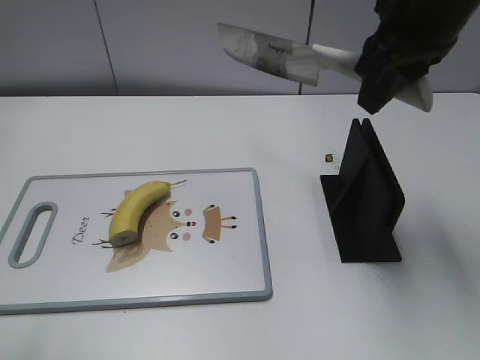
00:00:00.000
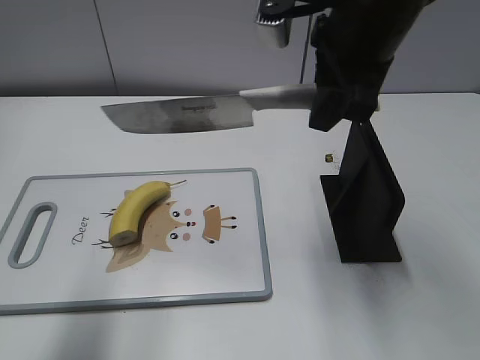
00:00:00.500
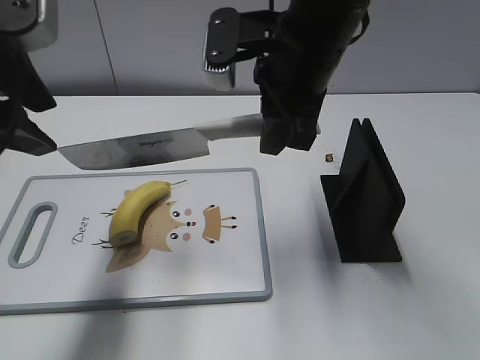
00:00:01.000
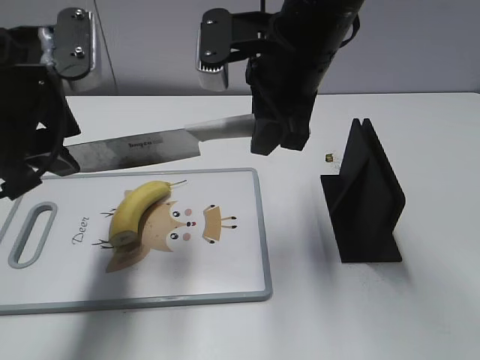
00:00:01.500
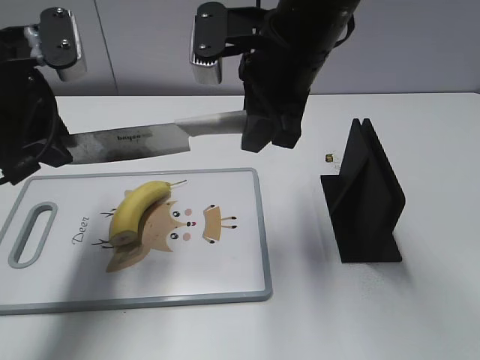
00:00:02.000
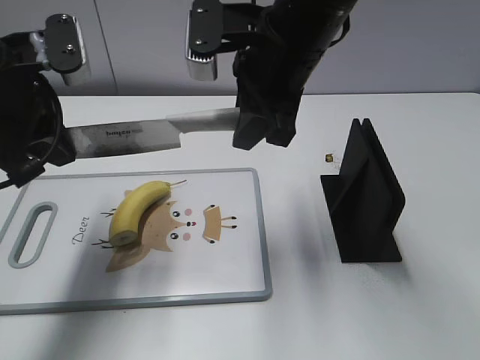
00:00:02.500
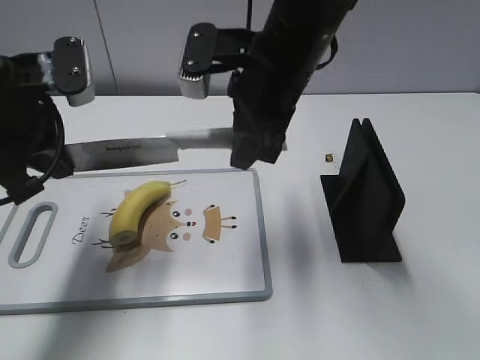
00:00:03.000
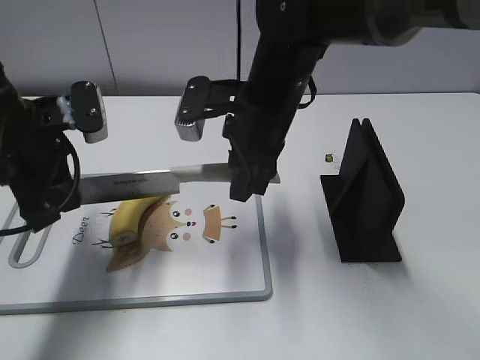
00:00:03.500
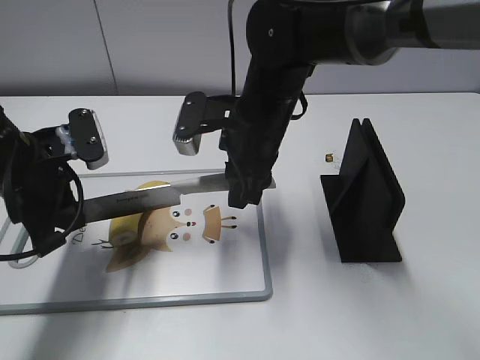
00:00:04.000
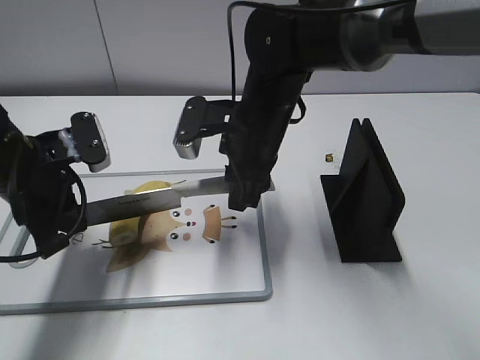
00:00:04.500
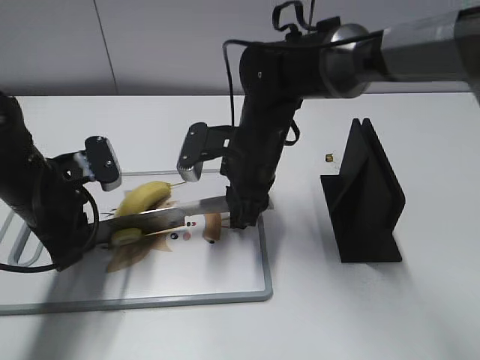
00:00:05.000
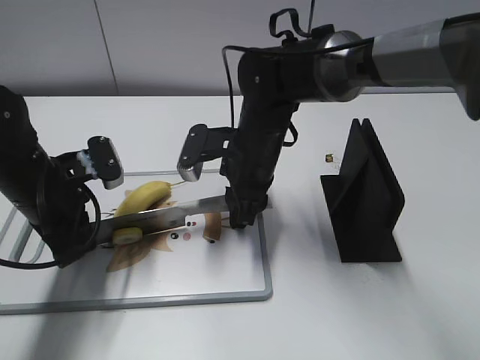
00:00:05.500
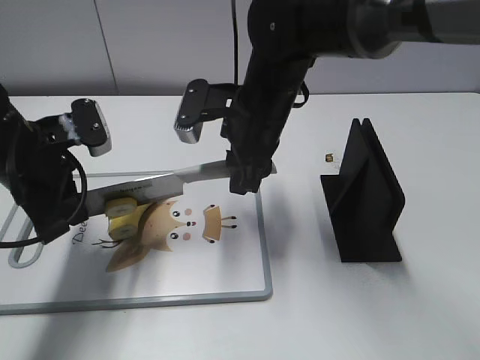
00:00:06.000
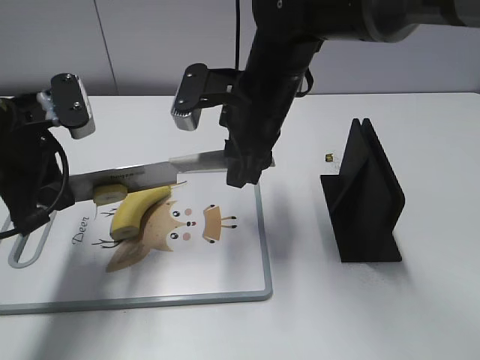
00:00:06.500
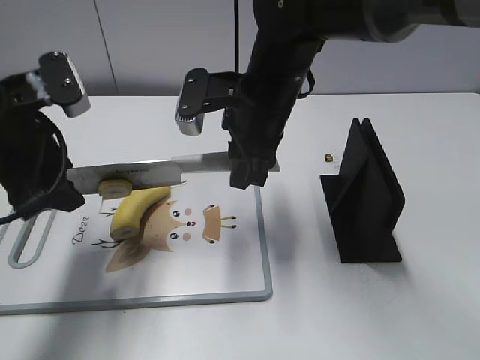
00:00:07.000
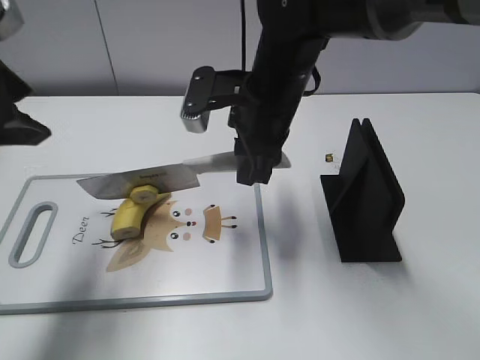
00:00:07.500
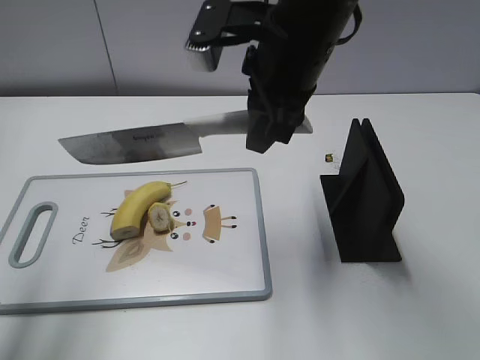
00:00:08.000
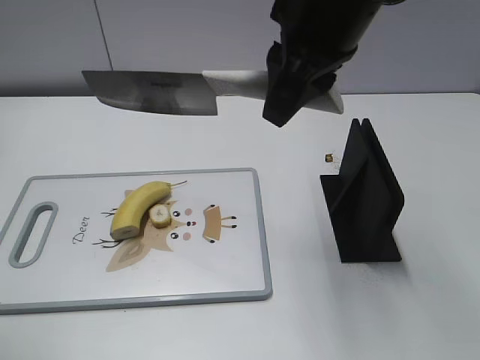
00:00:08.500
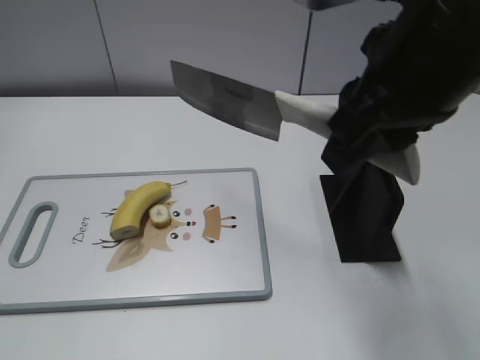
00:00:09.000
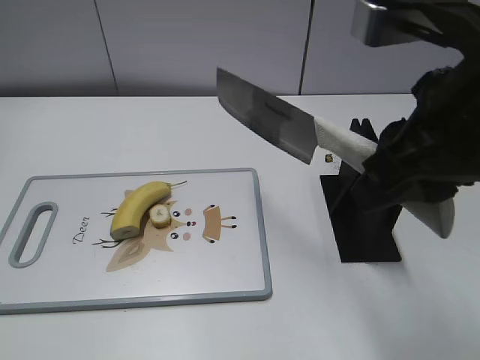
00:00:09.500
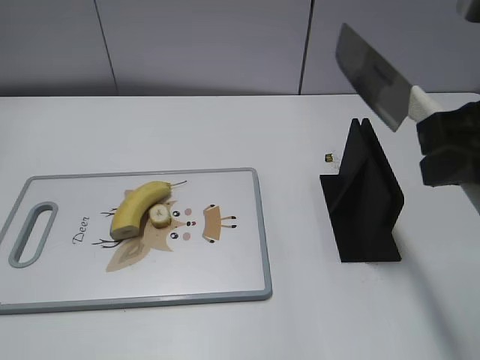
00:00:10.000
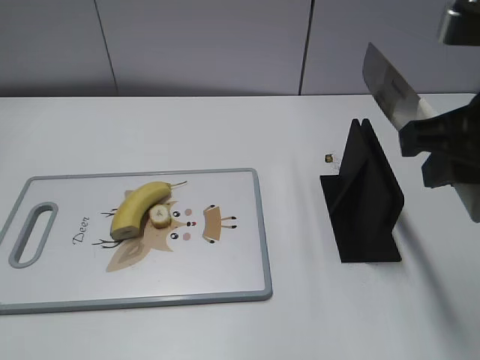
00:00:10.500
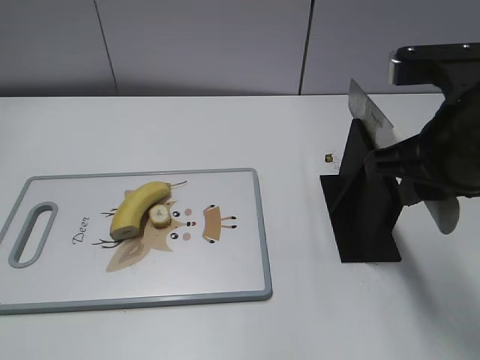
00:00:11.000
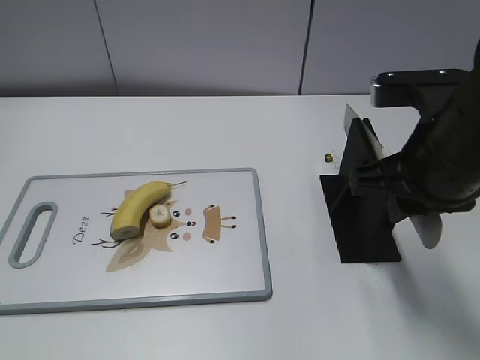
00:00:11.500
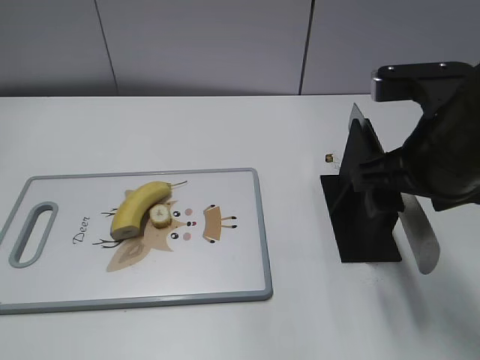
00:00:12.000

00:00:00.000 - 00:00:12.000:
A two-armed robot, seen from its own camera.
Task of the whole recording: cut banana.
Step, 00:00:00.000 - 00:00:04.500: Lift the knife with your right hand.
Step, 00:00:05.000 - 00:00:09.000: Cut the banana with your right hand.
Step, 00:00:09.500 - 00:00:10.500: Lift the knife with your right hand.
00:00:00.000 - 00:00:02.000: The right gripper moves to the left and downward, about 10 cm; the left gripper moves forward, some 20 cm.
00:00:02.000 - 00:00:04.000: The grippers both shift downward by approximately 10 cm. The left gripper closes up.
00:00:06.000 - 00:00:08.000: The right gripper goes approximately 10 cm upward. The left gripper shifts roughly 20 cm upward and backward, and opens up.
00:00:08.000 - 00:00:10.000: The right gripper heads backward and to the right, covering approximately 20 cm. Meanwhile the left gripper travels backward and downward by about 20 cm.
00:00:10.000 - 00:00:12.000: The right gripper travels downward and forward by roughly 10 cm, and opens its fingers.

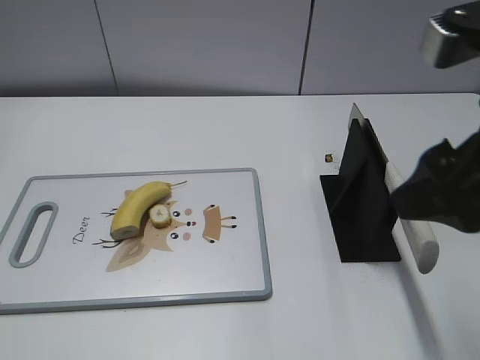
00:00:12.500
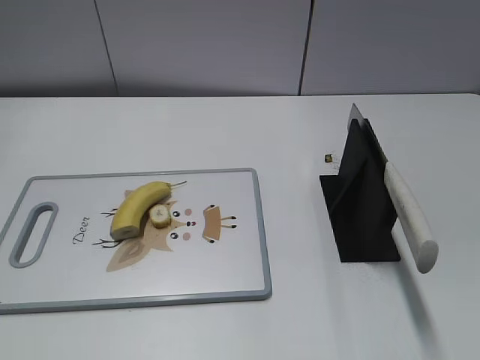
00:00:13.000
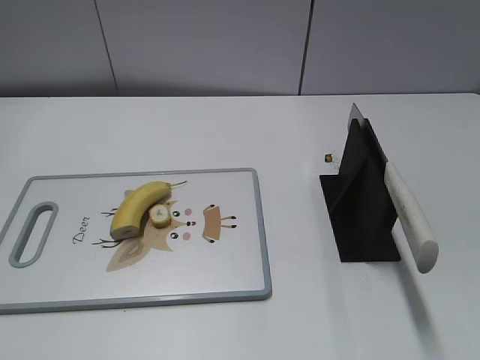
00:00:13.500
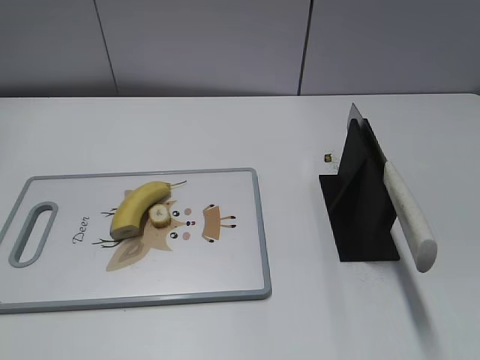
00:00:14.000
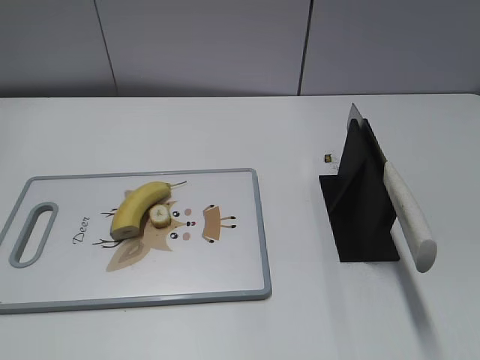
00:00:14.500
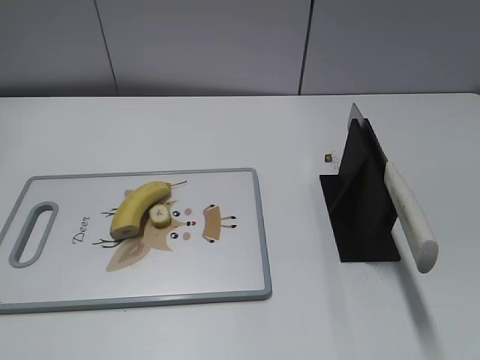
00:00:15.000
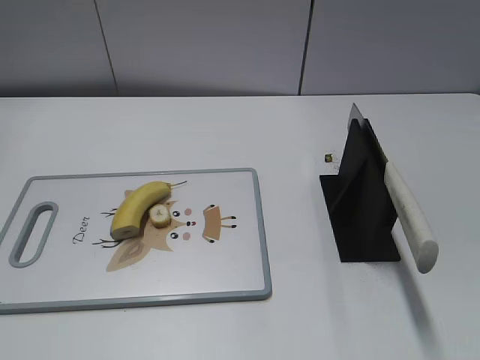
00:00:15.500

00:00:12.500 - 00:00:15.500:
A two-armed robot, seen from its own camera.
Task of the whole recording: cut banana.
Step, 00:00:12.500 - 00:00:15.500: Place the knife on the storage rack with your right hand.
00:00:12.500 - 00:00:14.000: The right gripper is displaced backward and to the right by roughly 20 cm.

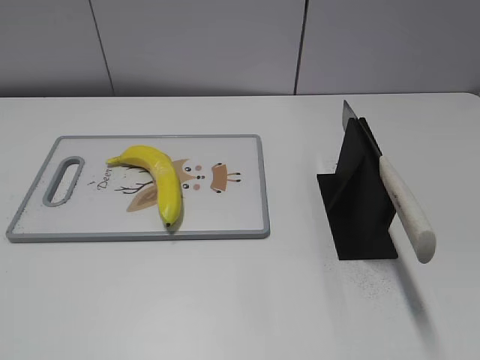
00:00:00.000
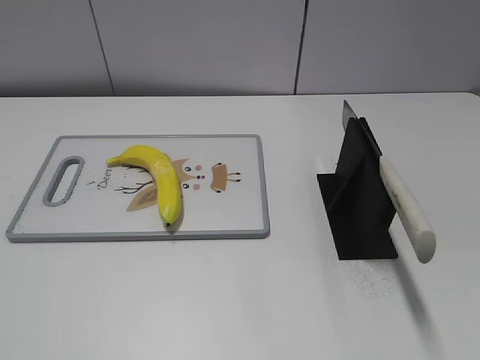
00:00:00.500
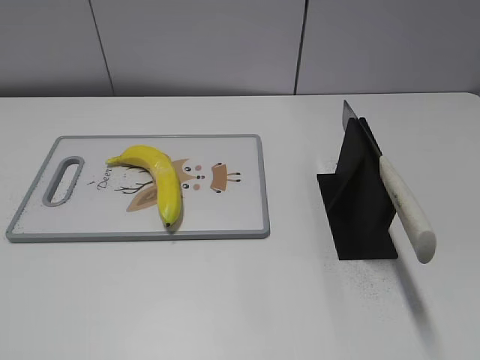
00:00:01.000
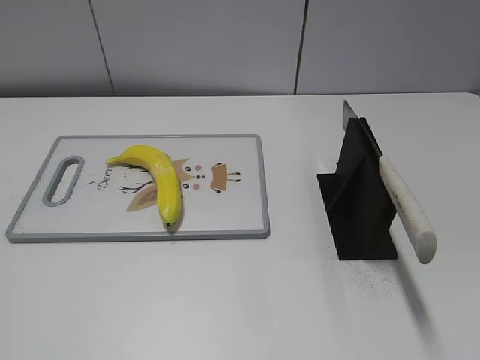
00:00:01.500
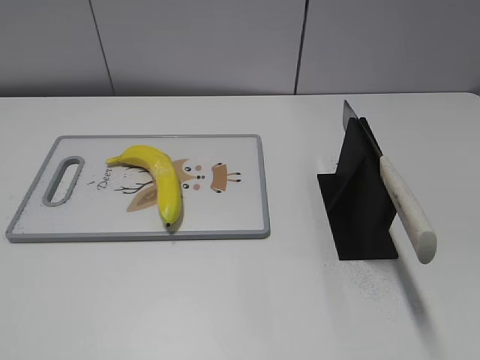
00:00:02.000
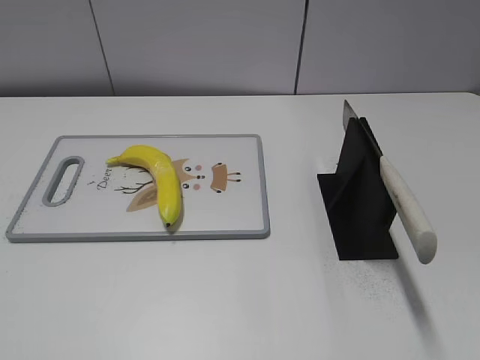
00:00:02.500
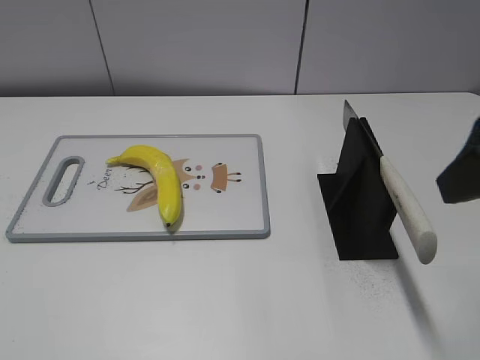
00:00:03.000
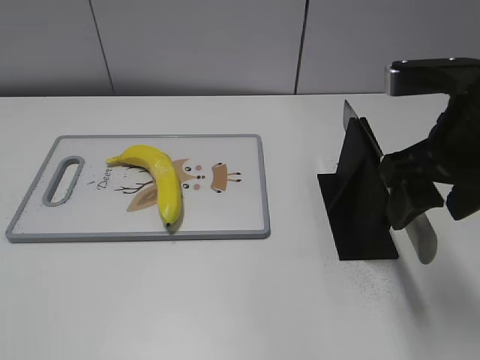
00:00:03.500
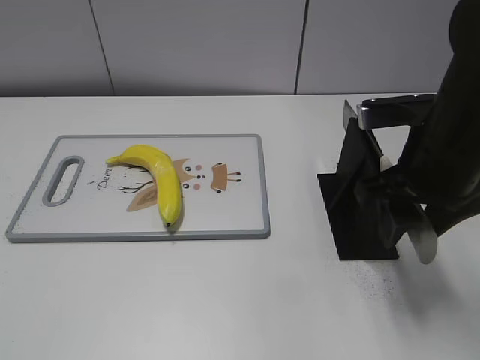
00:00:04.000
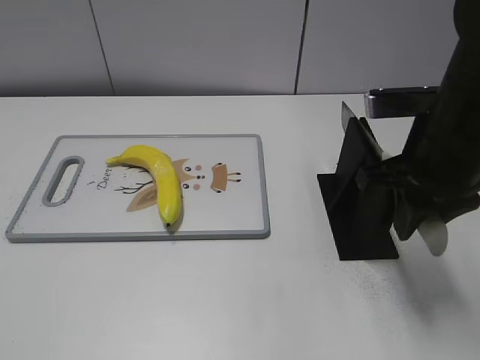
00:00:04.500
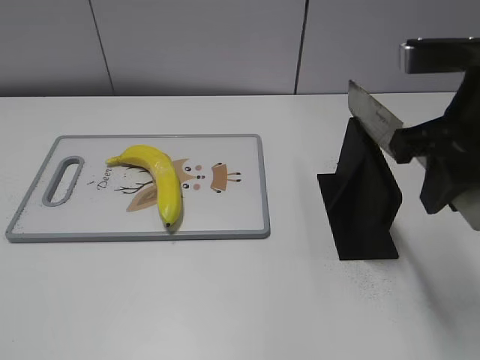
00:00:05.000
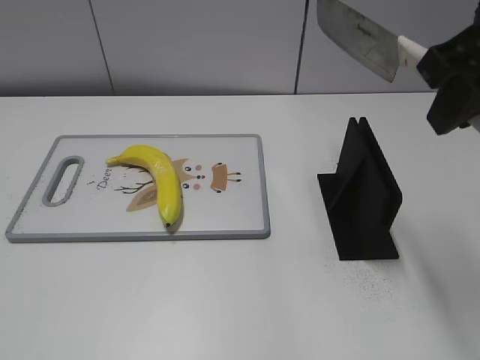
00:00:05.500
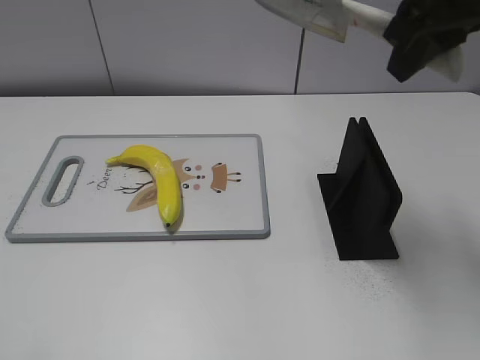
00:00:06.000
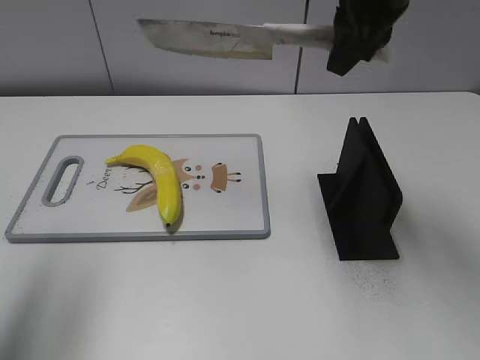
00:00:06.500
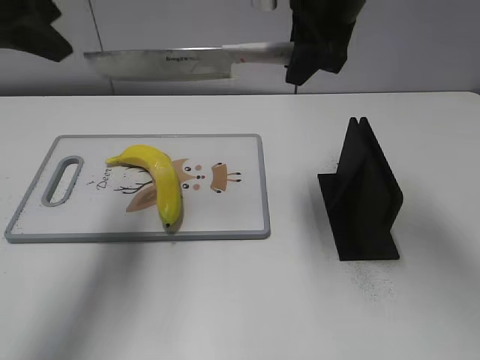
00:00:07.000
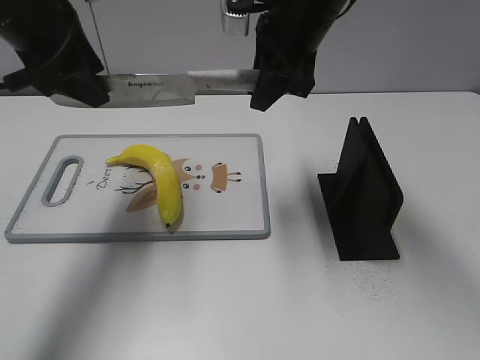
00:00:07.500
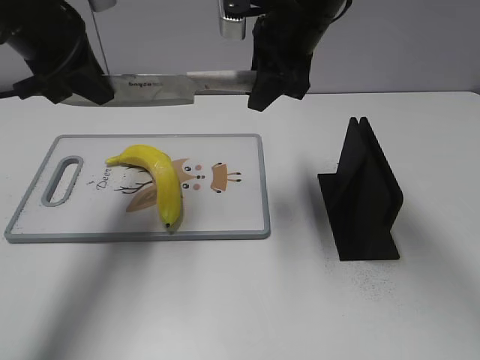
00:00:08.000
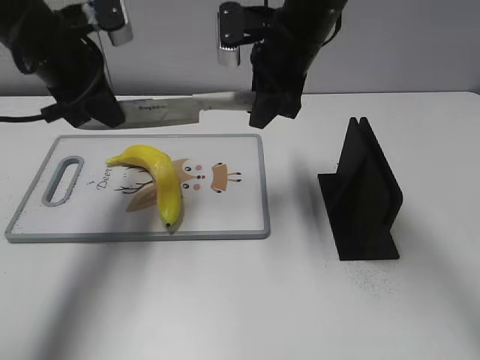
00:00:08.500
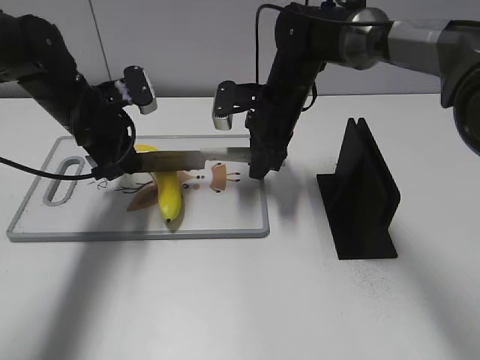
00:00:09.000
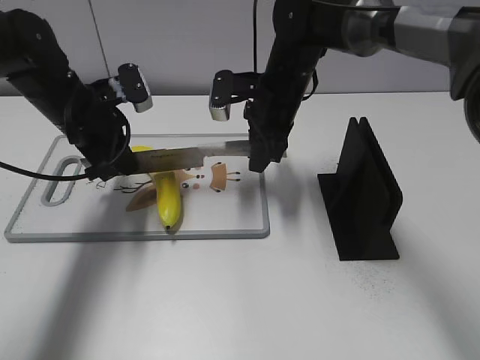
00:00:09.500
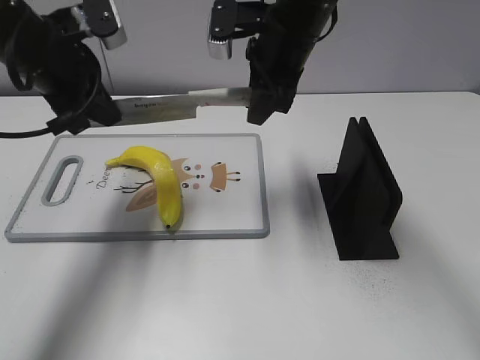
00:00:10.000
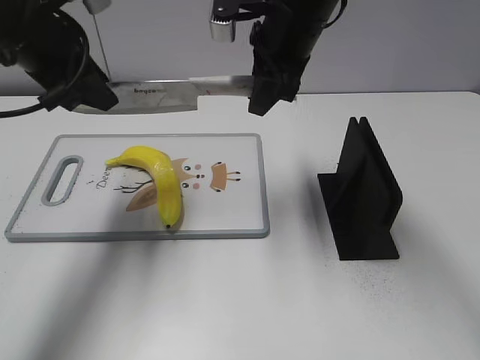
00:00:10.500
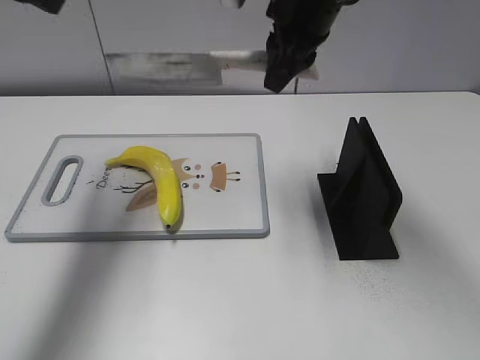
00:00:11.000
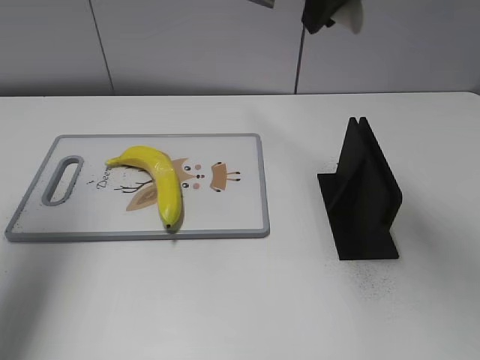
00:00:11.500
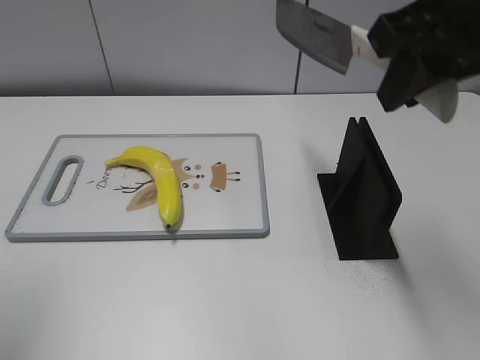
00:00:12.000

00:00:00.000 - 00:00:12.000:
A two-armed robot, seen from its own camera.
Task of the whole recording: cut plastic banana.
Step, 00:00:00.000 - 00:00:05.000: Grab the knife handle with your right hand.
Step, 00:00:05.500 - 00:00:10.000: Lift the knife with your right hand.
Step, 00:00:10.500 - 00:00:11.500: Cut the banana with your right hand.
00:00:02.000 - 00:00:04.000: The right gripper heads forward, to the left and downward, covering approximately 30 cm.
00:00:04.000 - 00:00:06.000: The right gripper moves upward, about 15 cm, and closes.
00:00:06.000 - 00:00:08.000: The left gripper goes approximately 30 cm forward, and closes its fingers, while the right gripper heads forward, to the left and downward, covering some 15 cm.
00:00:08.000 - 00:00:10.000: The right gripper travels downward and back again, some 15 cm each way, while the left gripper reaches approximately 15 cm downward, then returns.
00:00:10.000 - 00:00:12.000: The right gripper moves backward, upward and to the right, approximately 20 cm, while the left gripper moves backward, upward and to the left, roughly 25 cm, and opens.
